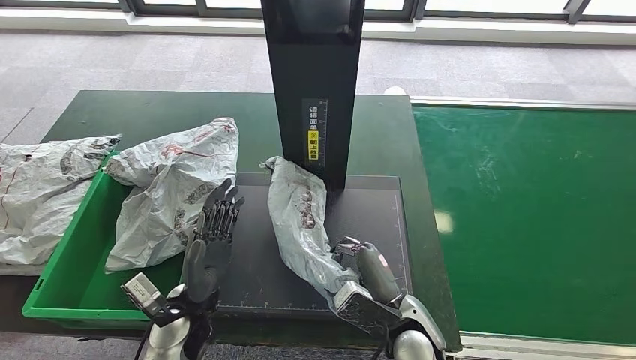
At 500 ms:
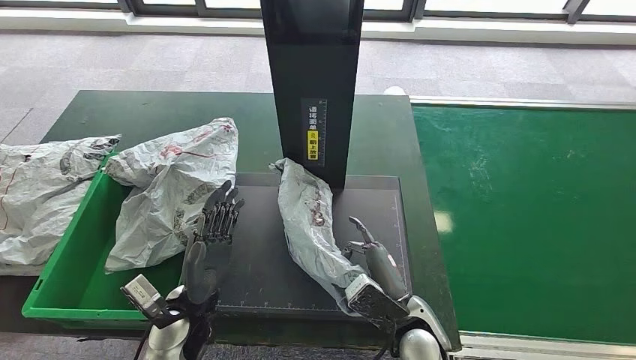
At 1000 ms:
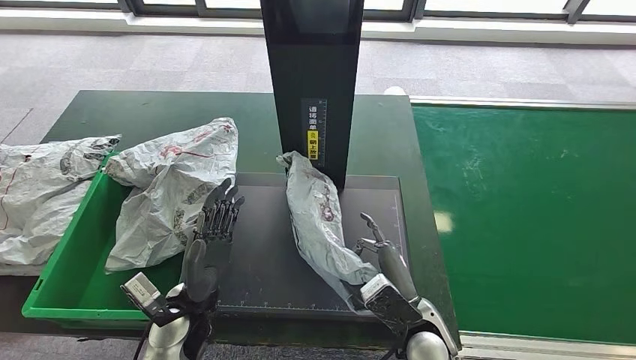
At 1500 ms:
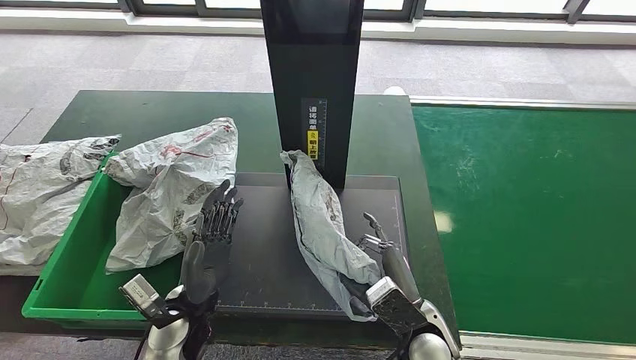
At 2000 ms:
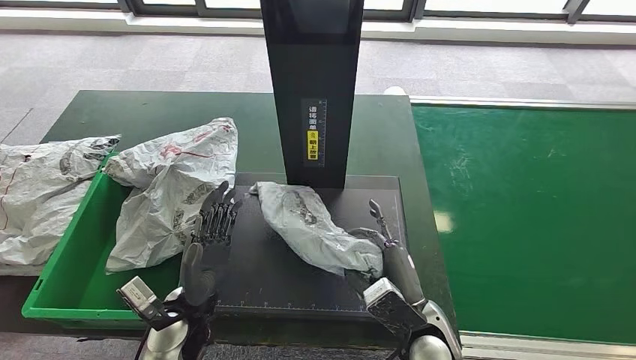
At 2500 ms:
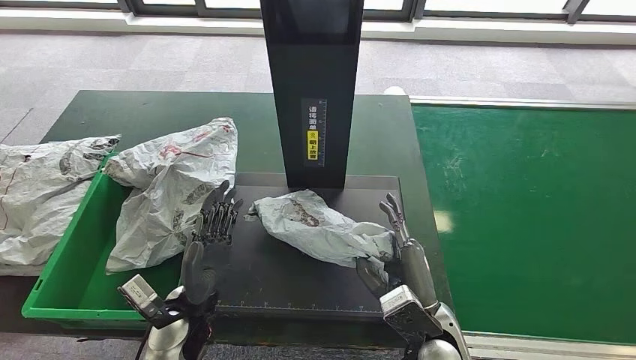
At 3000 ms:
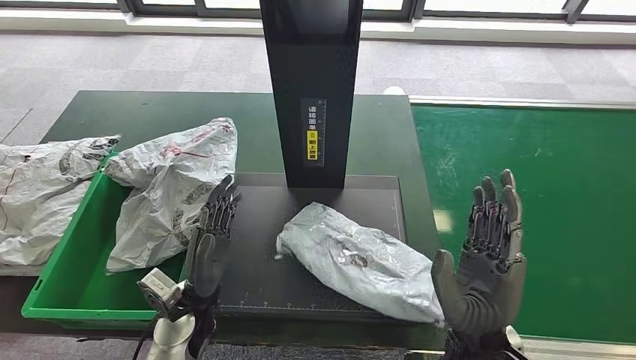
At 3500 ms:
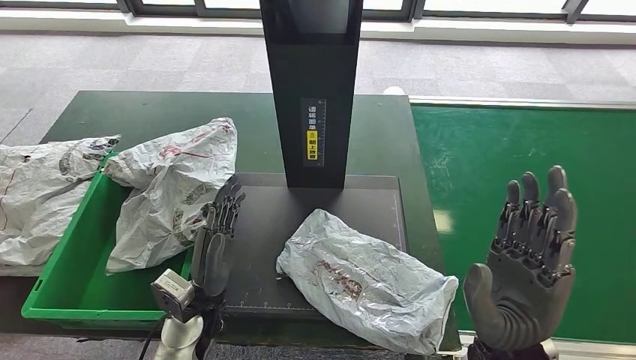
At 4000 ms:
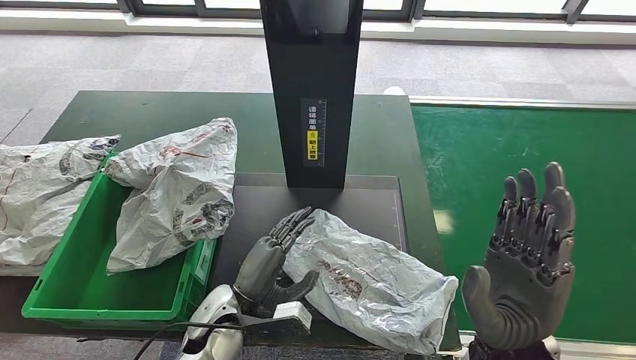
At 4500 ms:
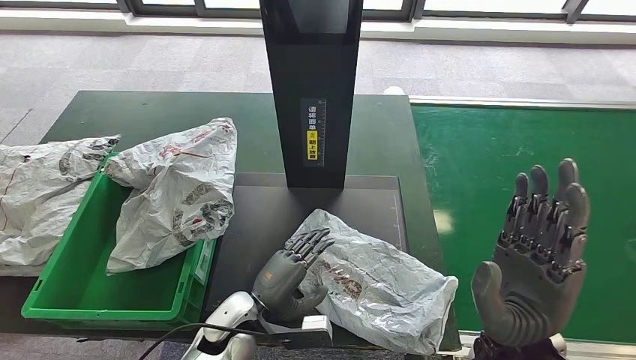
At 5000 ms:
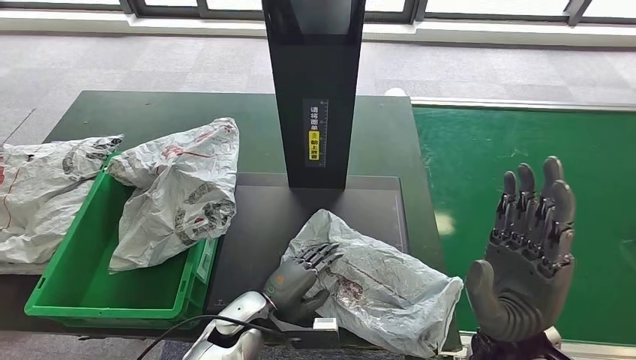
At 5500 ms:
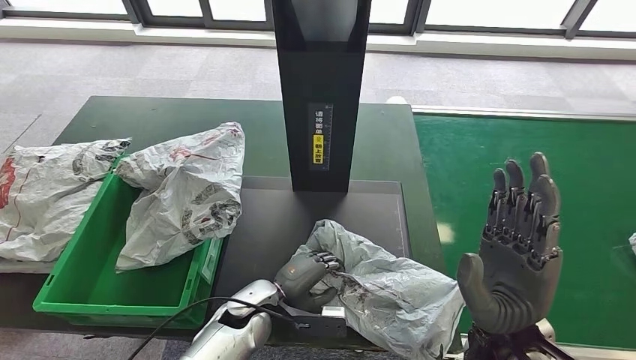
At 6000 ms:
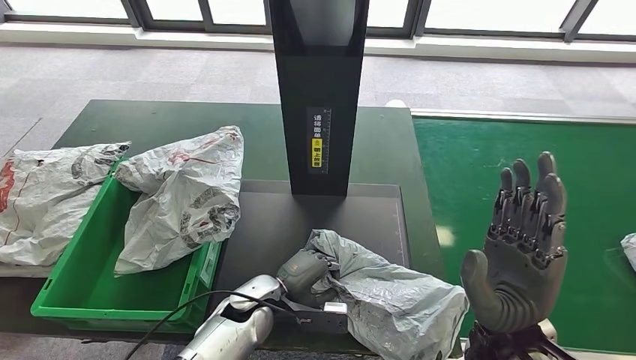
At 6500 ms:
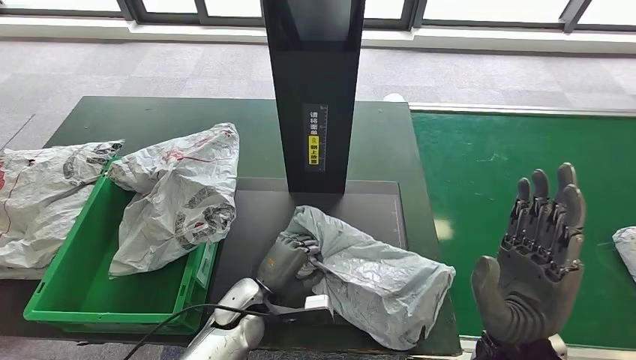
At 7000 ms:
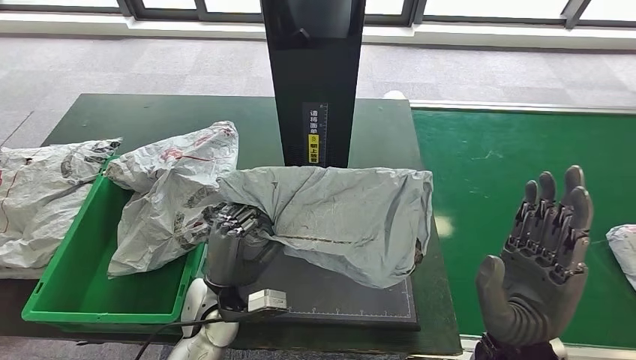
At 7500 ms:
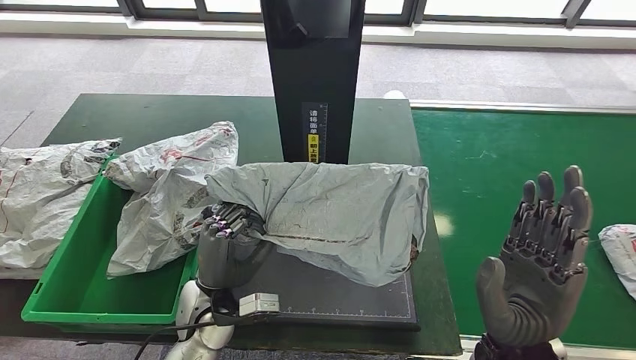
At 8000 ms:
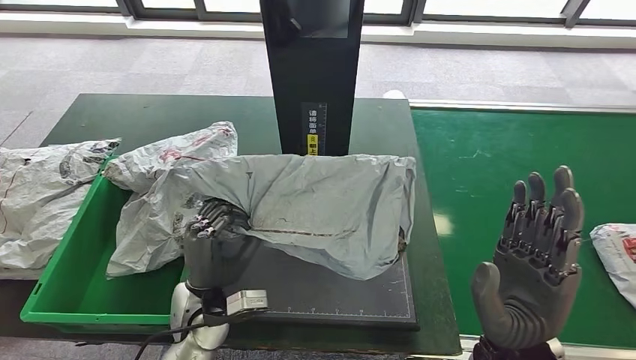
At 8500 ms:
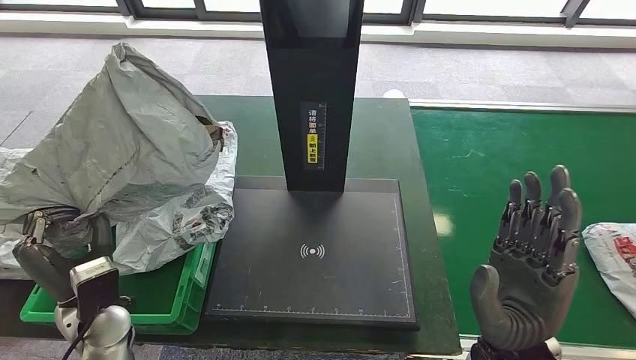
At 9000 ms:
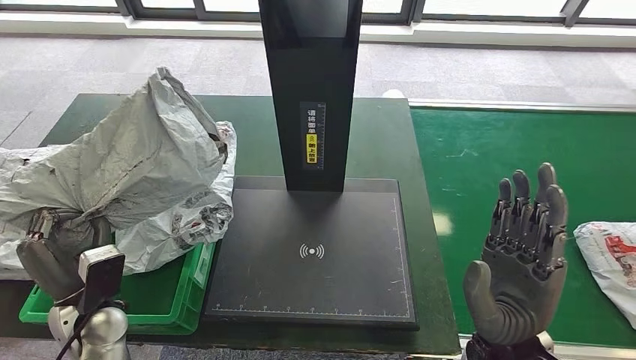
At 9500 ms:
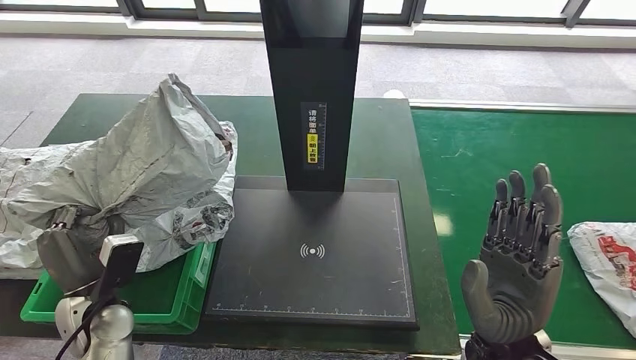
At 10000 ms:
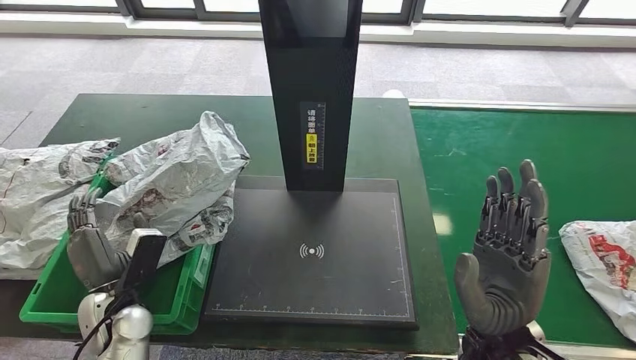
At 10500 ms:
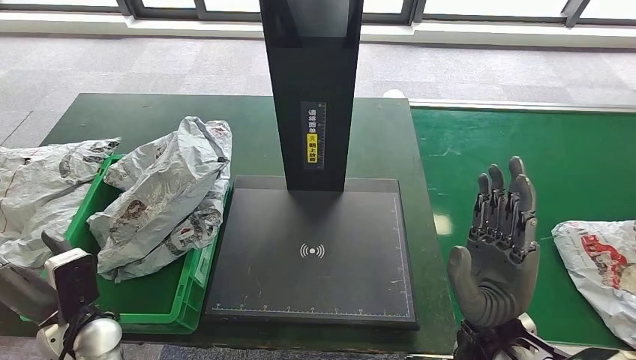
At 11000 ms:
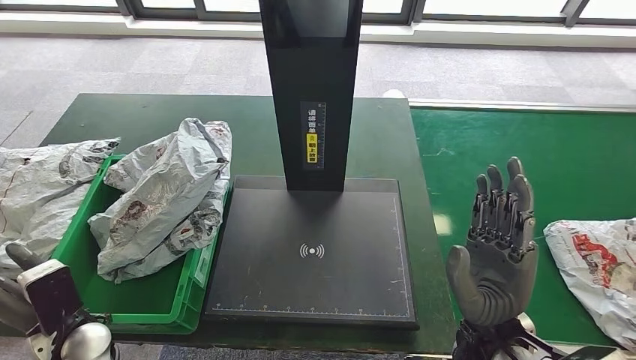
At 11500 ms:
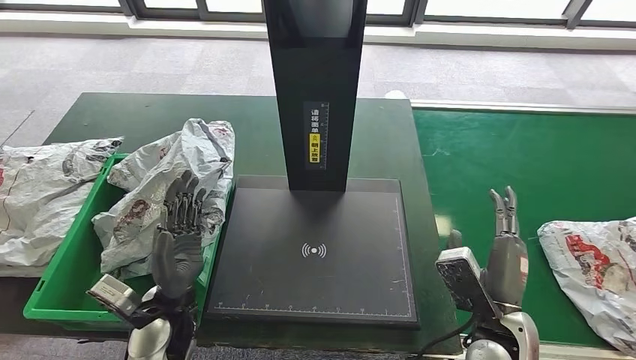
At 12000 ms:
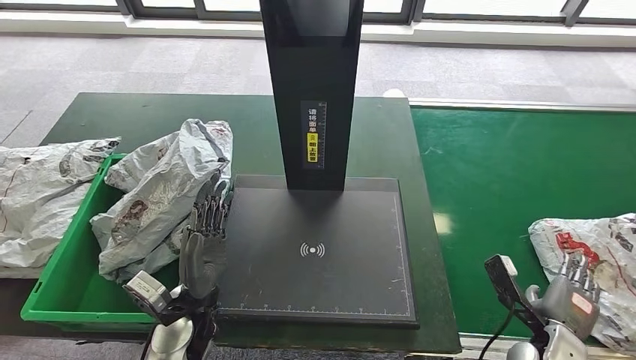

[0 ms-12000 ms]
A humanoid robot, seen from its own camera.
Step, 0 ms to 4000 ms: Place the parcel onto the inbound machine.
Step, 4500 ms to 7000 ms: Pick up the parcel from the inbound machine.
Step, 7500 ms to 10500 ms: Place the parcel into the delivery box.
0 ms to 2000 ms: The hands stay close to where they were, moving slightly.
2000 ms to 4000 ms: The right hand moves upward and to the right, about 15 cm.
10000 ms to 12000 ms: The right hand moves to the right and downward, roughly 20 cm, while the left hand goes roughly 15 cm to the right.

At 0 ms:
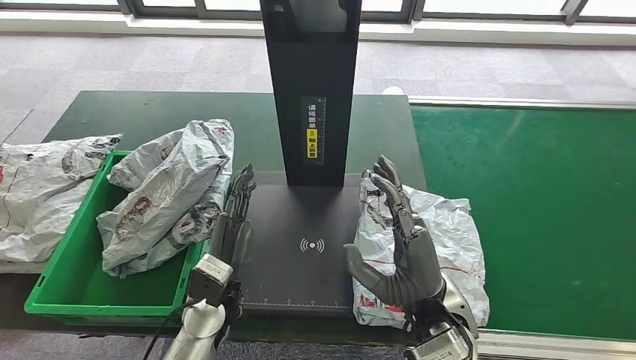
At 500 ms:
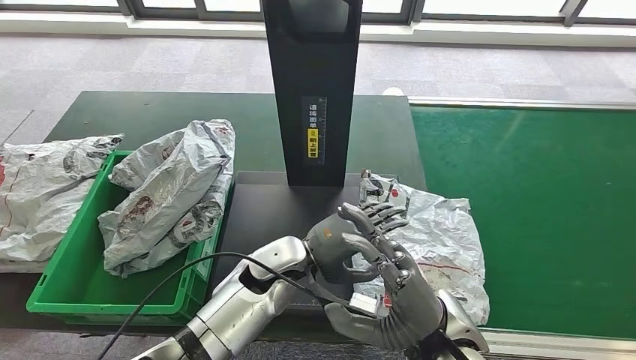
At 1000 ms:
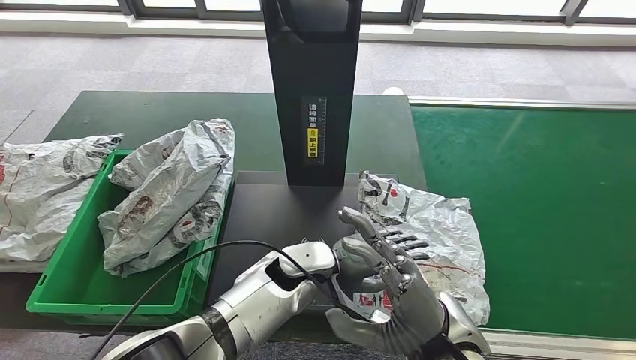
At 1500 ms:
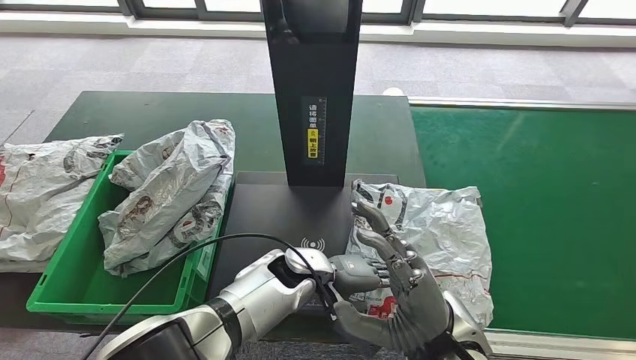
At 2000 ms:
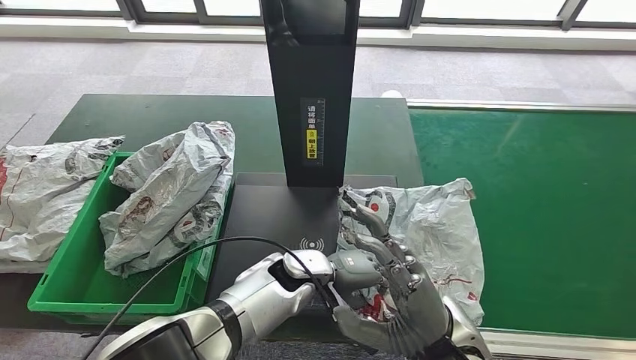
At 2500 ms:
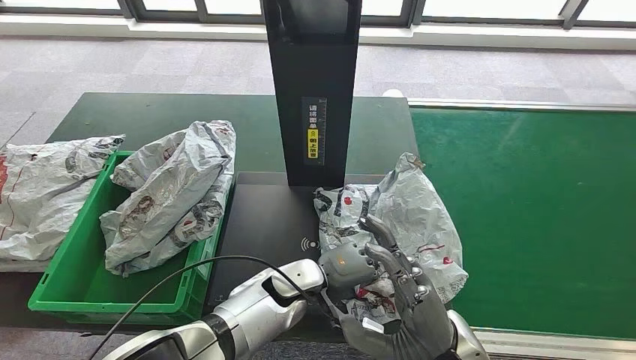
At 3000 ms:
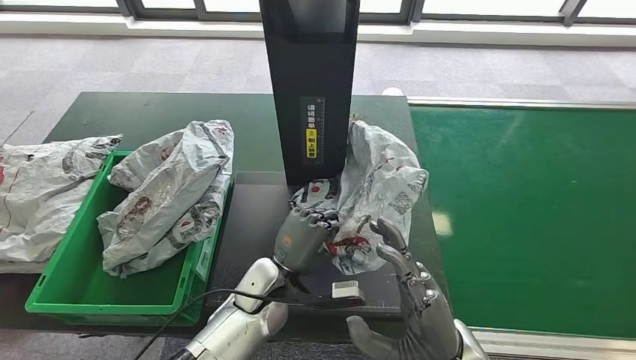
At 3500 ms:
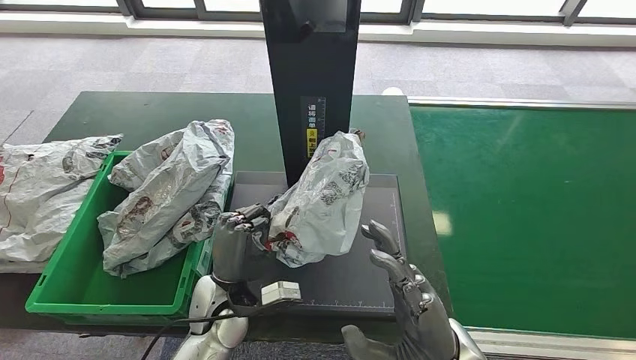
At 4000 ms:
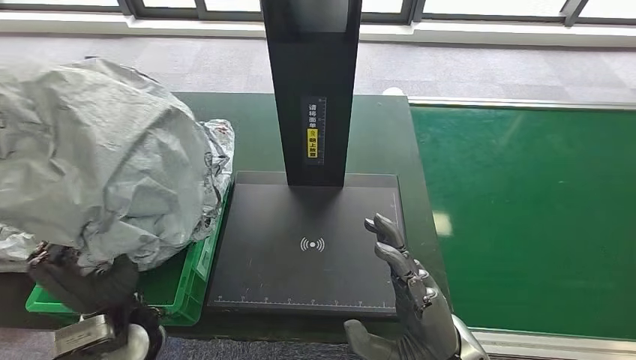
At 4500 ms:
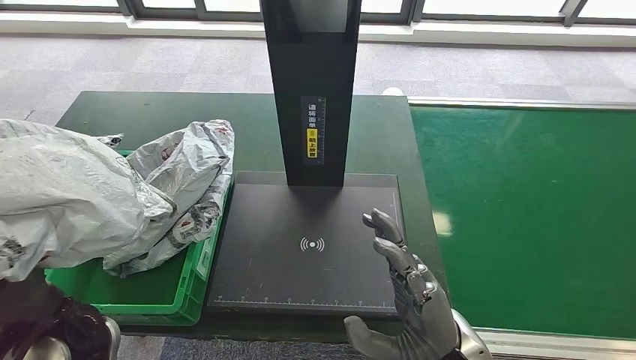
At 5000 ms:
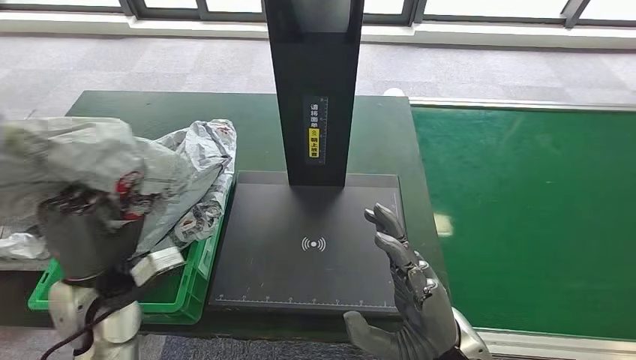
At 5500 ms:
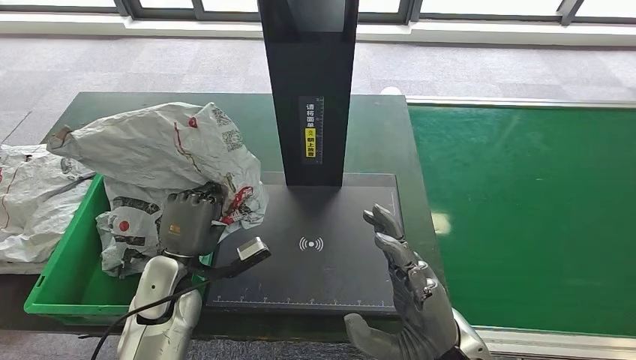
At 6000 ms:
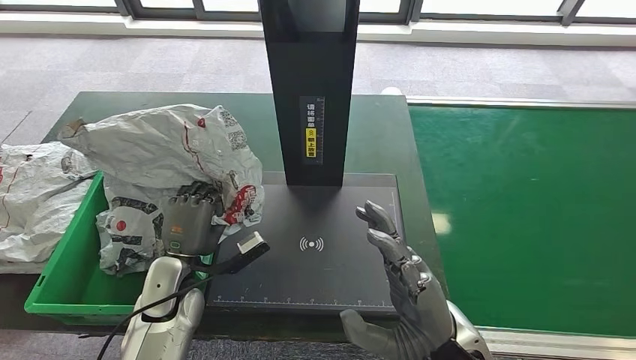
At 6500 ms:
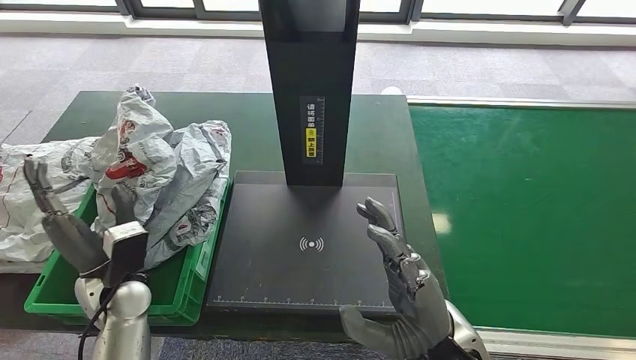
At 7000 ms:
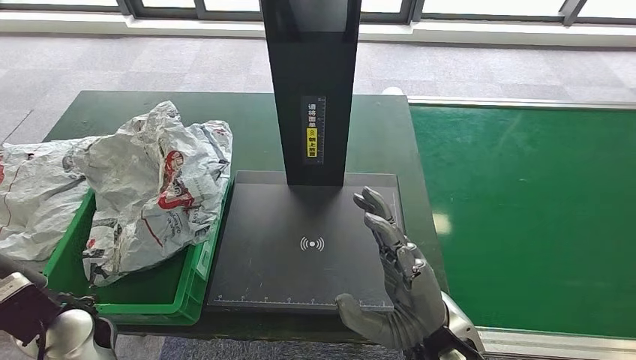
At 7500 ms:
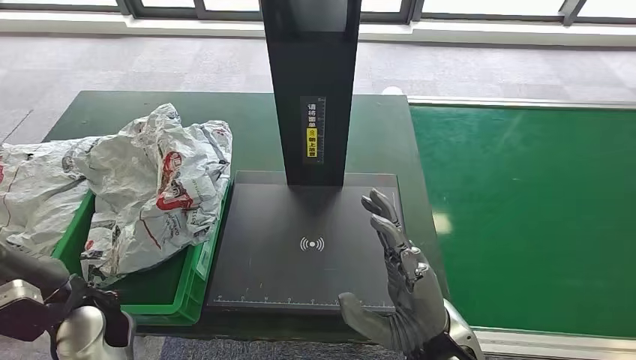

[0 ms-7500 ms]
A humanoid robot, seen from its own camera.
Step, 500 ms to 3000 ms: Pick up the parcel from the inbound machine.
Step, 4000 ms to 7000 ms: Place the parcel into the delivery box.
5500 ms to 7500 ms: The left hand moves to the left and backward, about 10 cm.

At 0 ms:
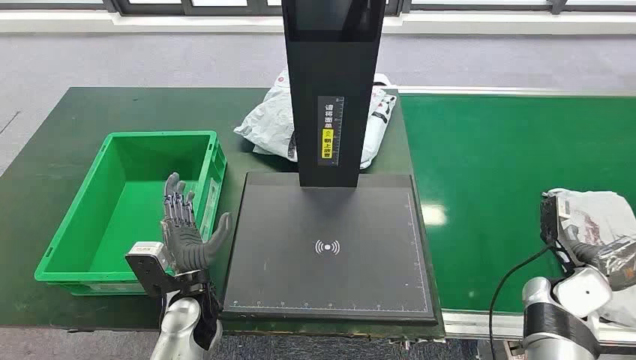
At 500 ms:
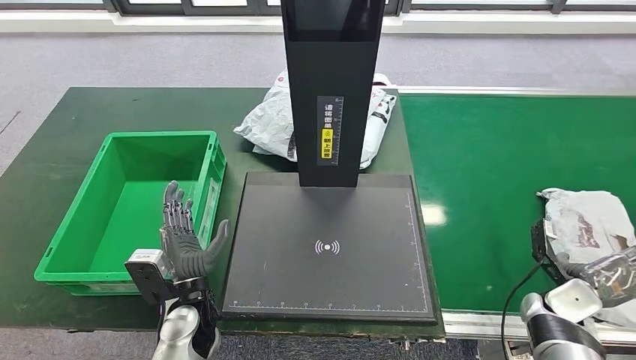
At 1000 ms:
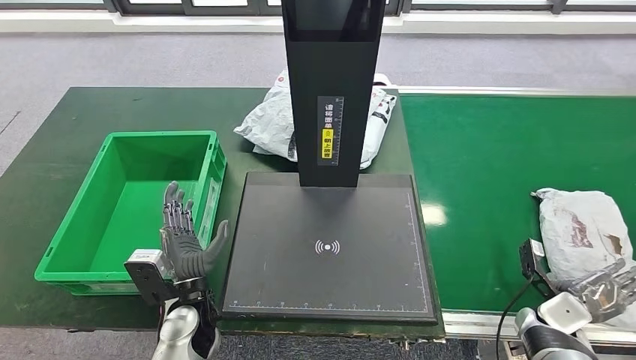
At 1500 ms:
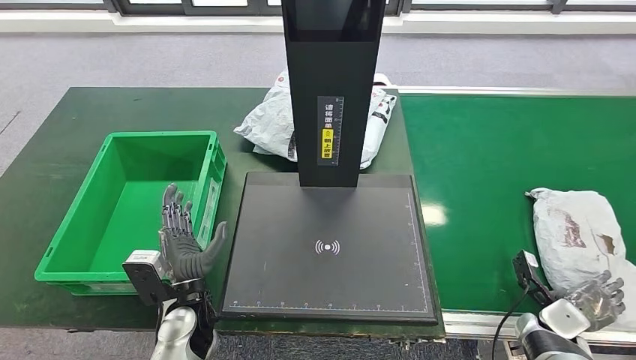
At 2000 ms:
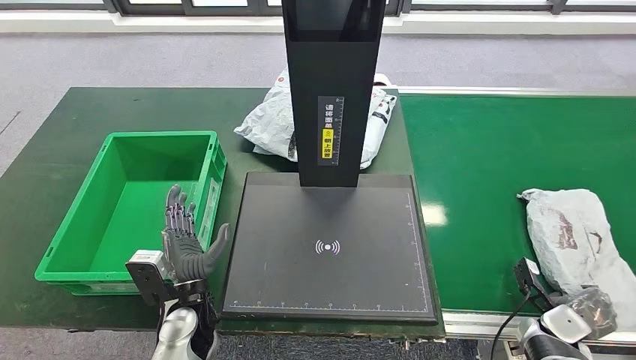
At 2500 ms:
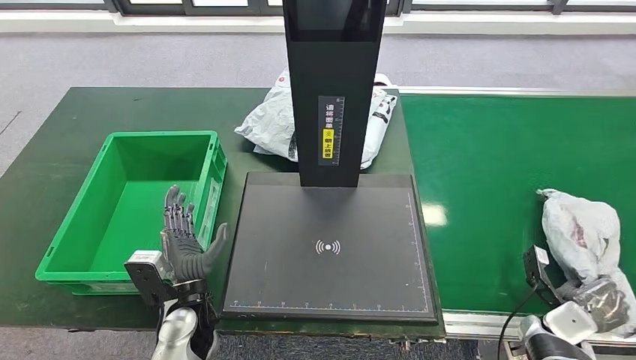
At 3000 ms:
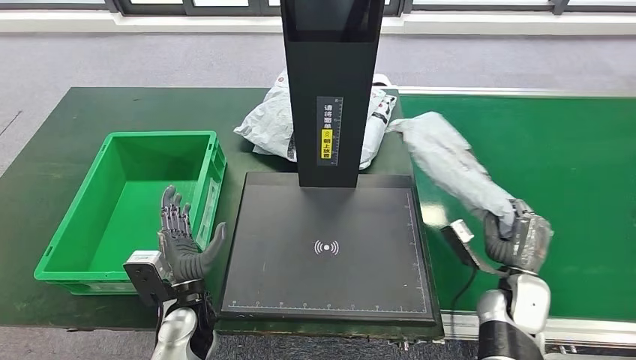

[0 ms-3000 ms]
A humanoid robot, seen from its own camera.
1500 ms to 3000 ms: The right hand goes approximately 10 cm to the left and upward.
